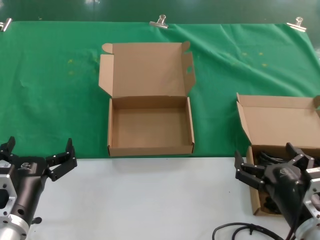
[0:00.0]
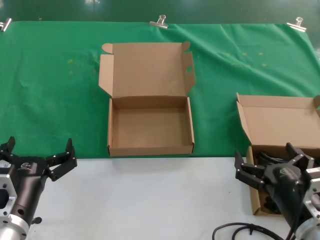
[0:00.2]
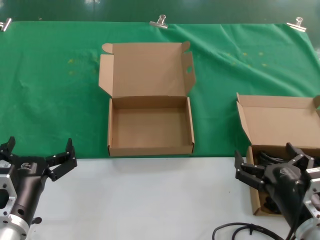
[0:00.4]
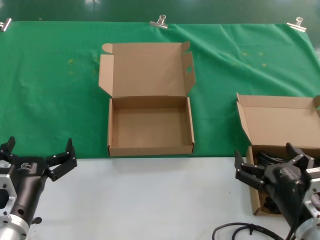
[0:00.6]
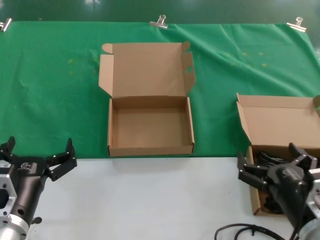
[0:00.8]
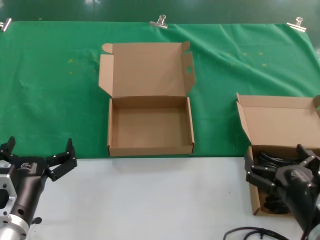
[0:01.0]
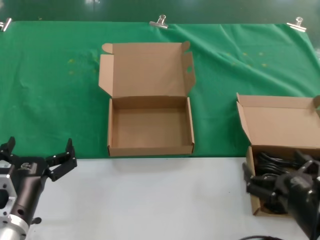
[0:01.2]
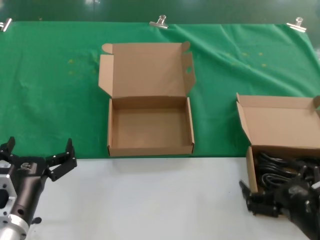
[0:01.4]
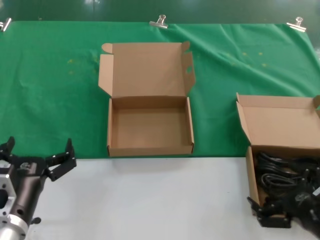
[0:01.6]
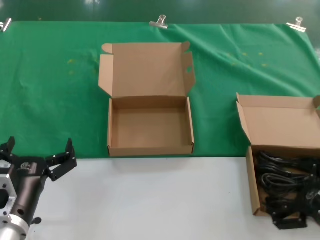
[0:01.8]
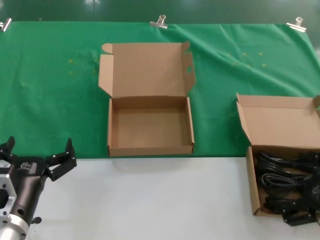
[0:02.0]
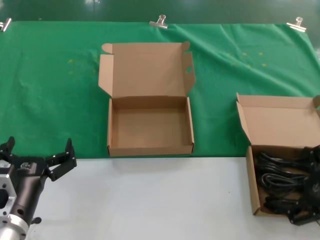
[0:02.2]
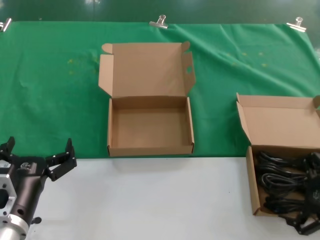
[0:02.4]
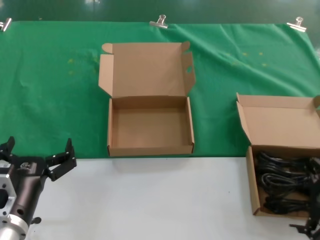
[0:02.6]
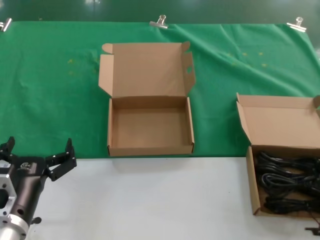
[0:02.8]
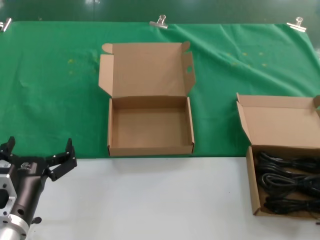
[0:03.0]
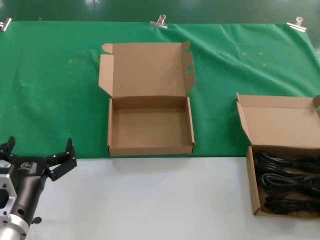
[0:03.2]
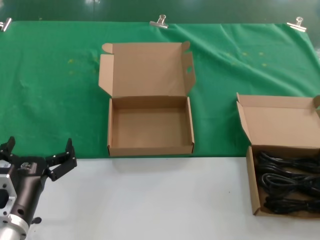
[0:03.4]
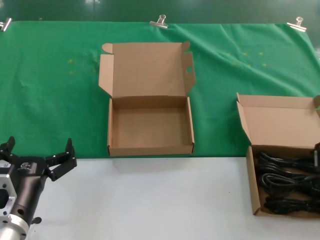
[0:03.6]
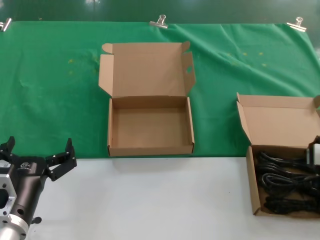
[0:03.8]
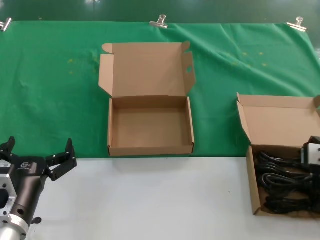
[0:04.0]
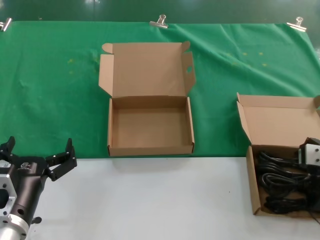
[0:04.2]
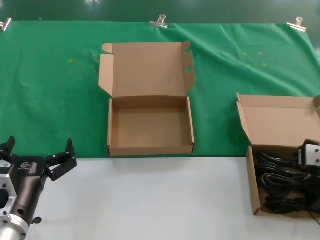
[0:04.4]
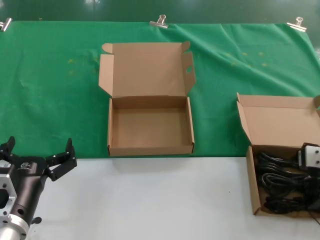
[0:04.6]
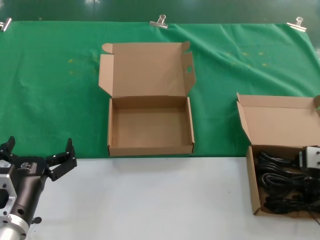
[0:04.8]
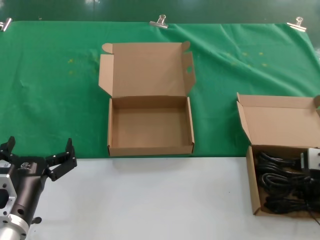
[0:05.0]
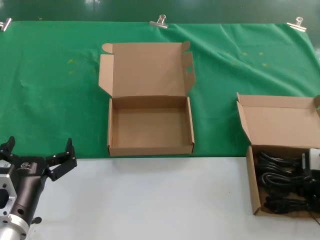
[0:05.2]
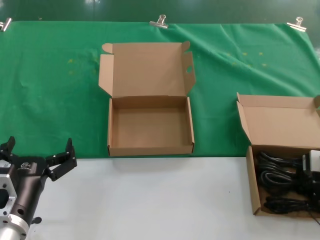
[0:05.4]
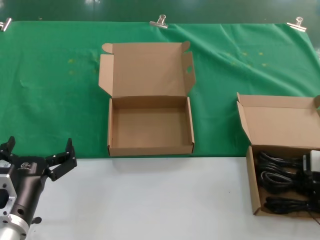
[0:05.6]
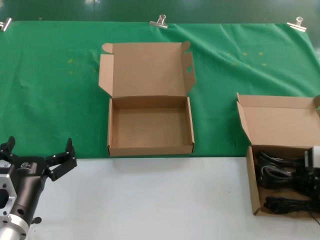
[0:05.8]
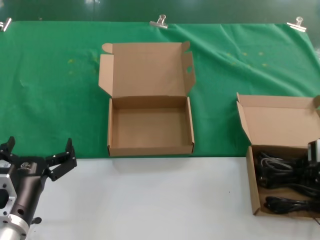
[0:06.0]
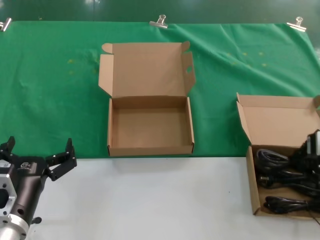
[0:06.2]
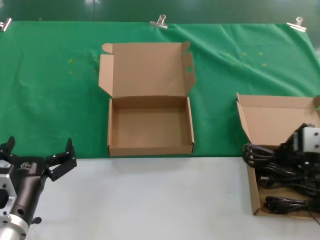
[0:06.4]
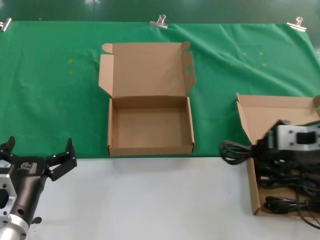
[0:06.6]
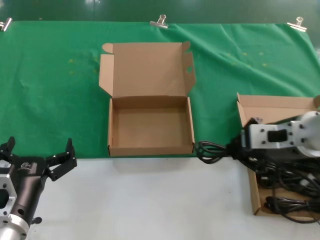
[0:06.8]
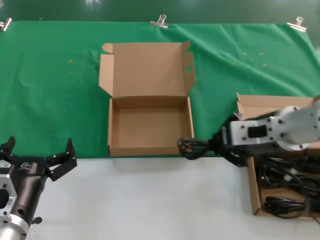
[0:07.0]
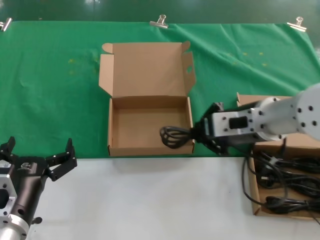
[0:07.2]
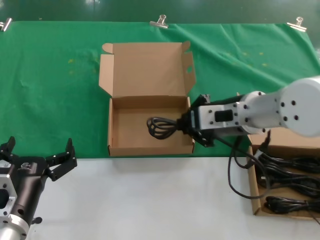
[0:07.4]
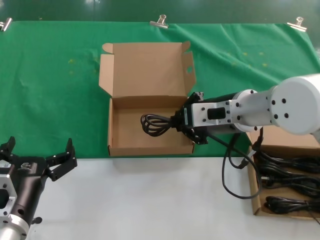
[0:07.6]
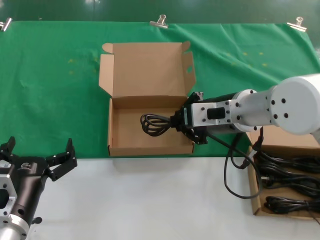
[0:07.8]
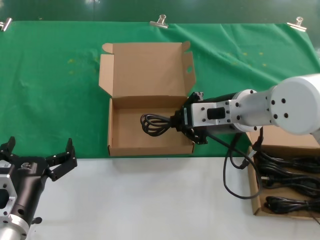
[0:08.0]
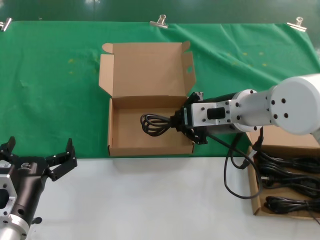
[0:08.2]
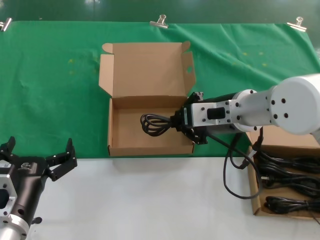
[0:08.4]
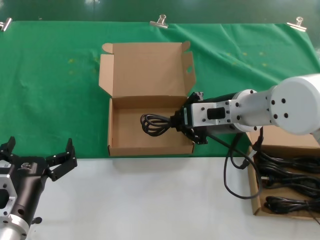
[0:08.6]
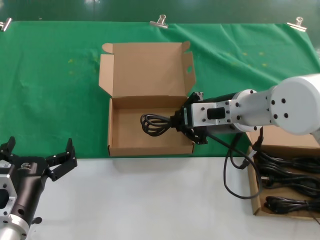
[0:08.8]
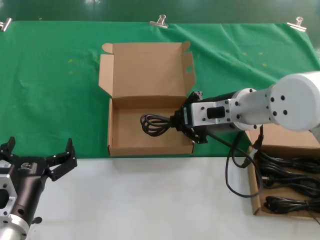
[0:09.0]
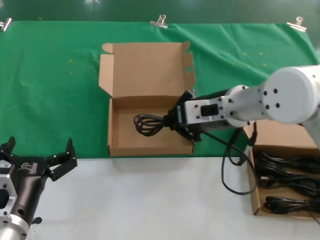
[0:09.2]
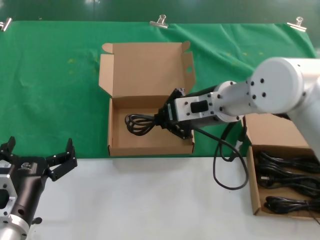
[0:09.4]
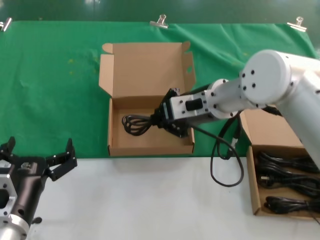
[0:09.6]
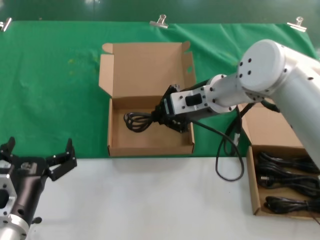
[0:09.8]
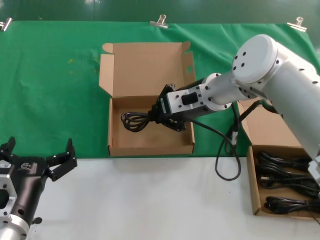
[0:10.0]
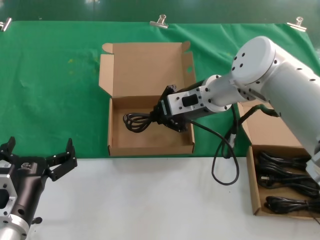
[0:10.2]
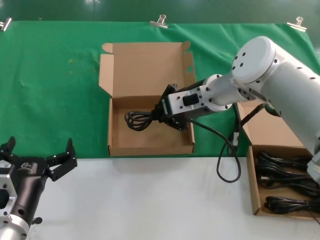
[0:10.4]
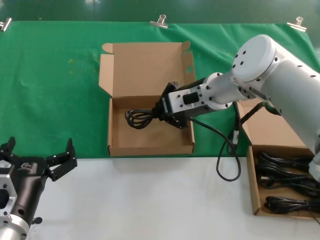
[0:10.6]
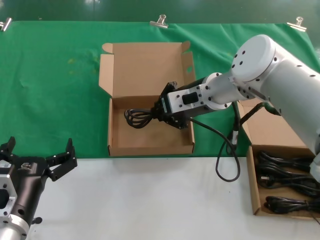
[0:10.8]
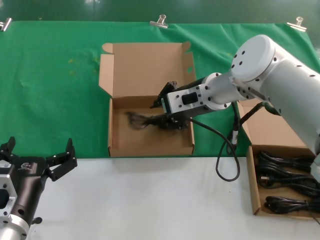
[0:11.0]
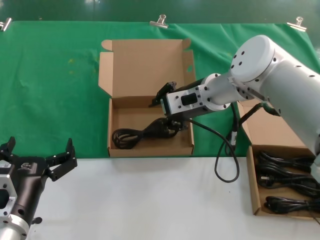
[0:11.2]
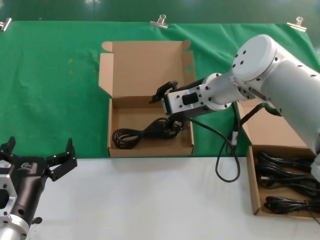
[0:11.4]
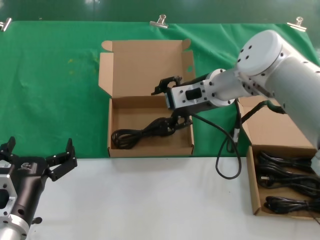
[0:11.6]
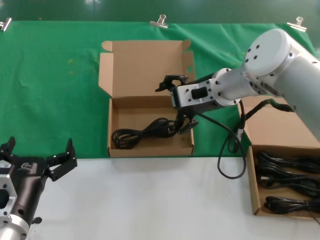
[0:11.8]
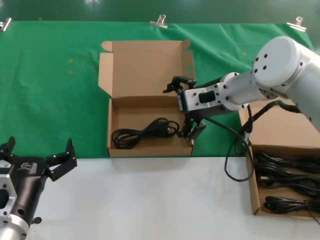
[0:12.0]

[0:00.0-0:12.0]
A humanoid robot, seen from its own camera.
Task of the whole recording: take the parts from the box containing them and put them into an empty box.
Step, 0.0 to 5.2 s: Grasp the data cable.
Step, 5.4 to 11.0 s: Place the data cable in the another box.
0.0 to 1.6 s: The right hand travels to the right by about 5 cm.
1.6 to 3.0 s: The right hand shifts roughly 15 cm upward, forward and to the right.
3.0 to 4.4 s: The right hand goes some 5 cm forward.
4.4 to 6.0 s: The hands make only small movements.
6.0 to 7.6 s: The right hand goes roughly 20 cm to the left.
7.6 to 9.0 s: Neither hand changes place.
9.0 to 10.4 s: The right hand goes some 10 cm forward.
10.4 to 12.0 s: The hands make only small movements.

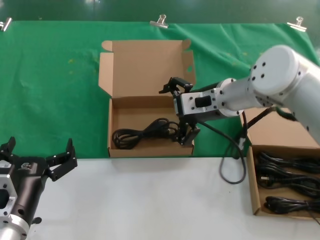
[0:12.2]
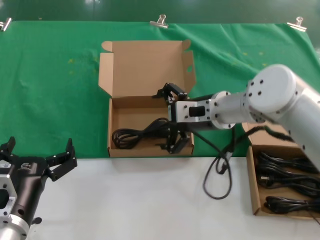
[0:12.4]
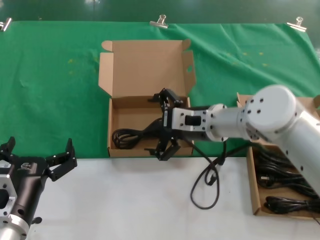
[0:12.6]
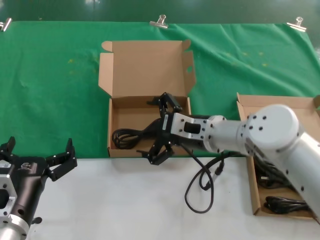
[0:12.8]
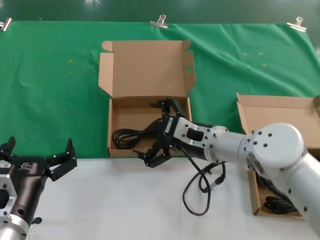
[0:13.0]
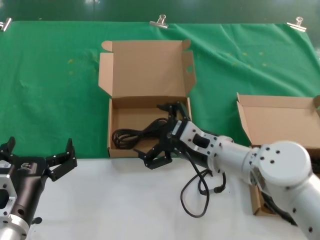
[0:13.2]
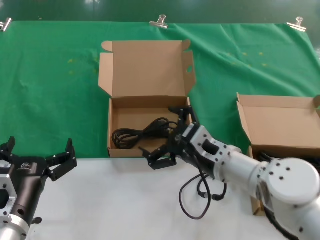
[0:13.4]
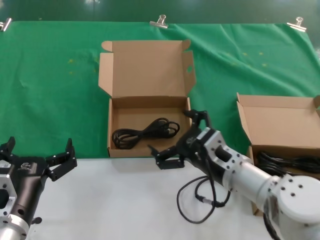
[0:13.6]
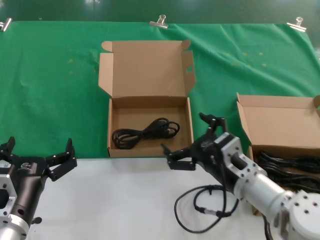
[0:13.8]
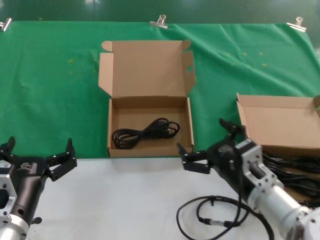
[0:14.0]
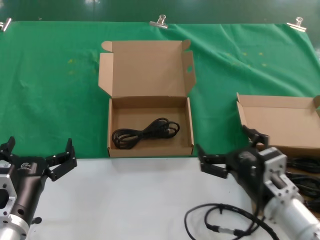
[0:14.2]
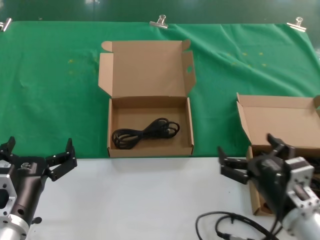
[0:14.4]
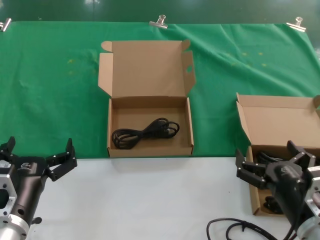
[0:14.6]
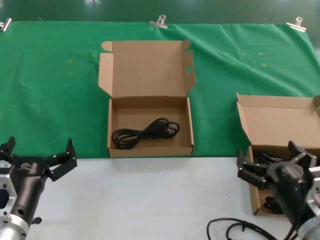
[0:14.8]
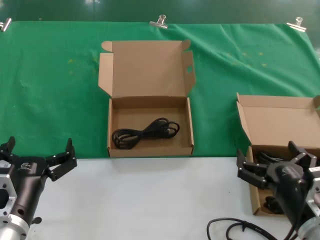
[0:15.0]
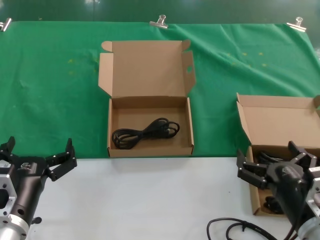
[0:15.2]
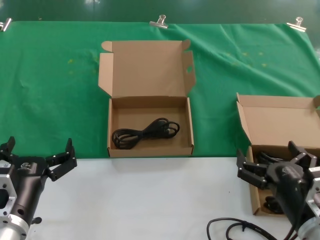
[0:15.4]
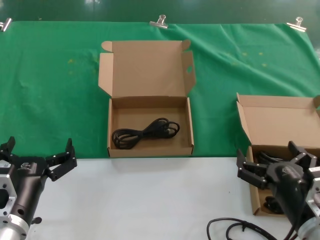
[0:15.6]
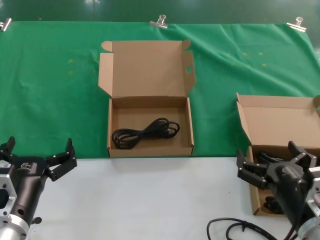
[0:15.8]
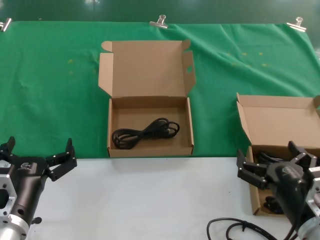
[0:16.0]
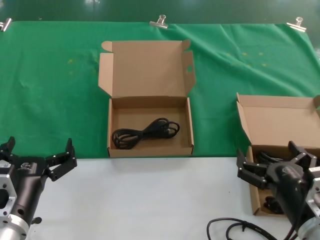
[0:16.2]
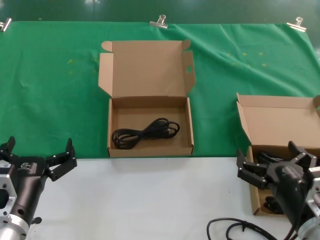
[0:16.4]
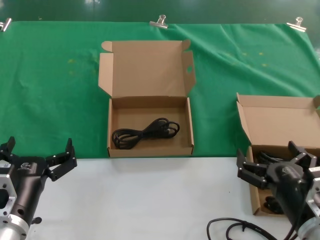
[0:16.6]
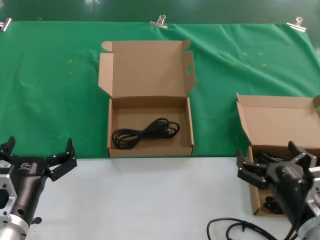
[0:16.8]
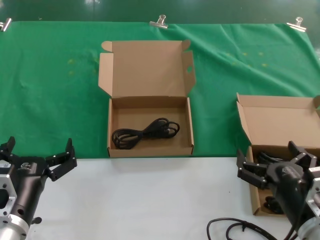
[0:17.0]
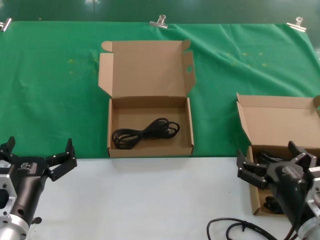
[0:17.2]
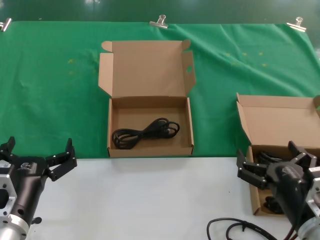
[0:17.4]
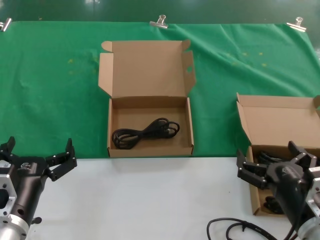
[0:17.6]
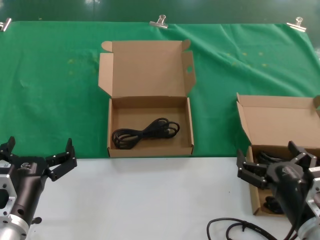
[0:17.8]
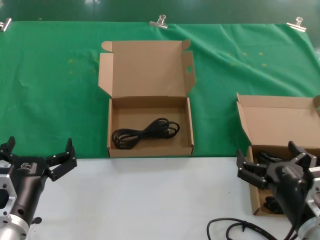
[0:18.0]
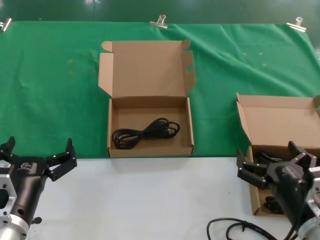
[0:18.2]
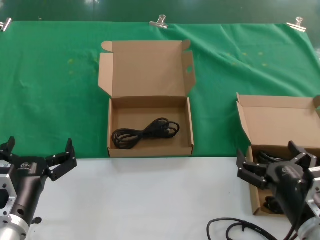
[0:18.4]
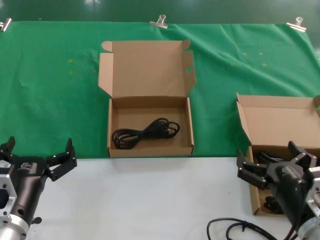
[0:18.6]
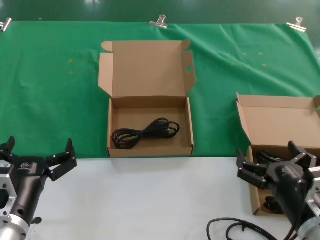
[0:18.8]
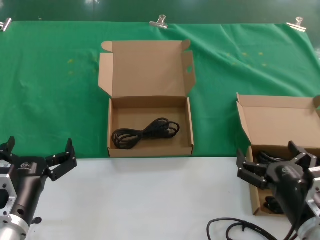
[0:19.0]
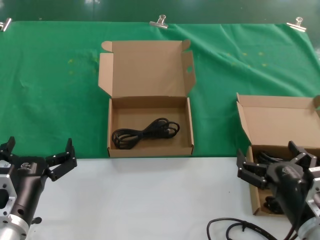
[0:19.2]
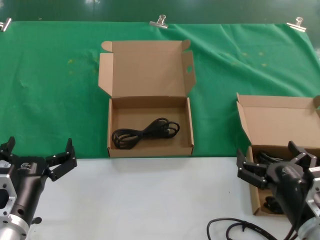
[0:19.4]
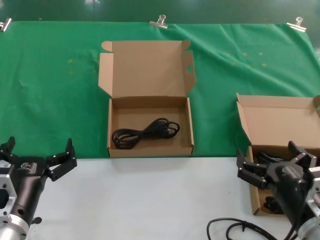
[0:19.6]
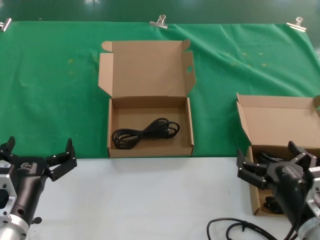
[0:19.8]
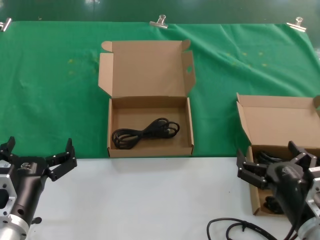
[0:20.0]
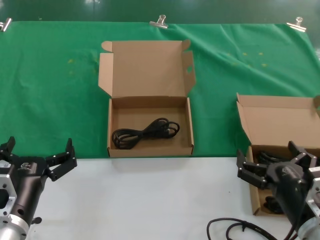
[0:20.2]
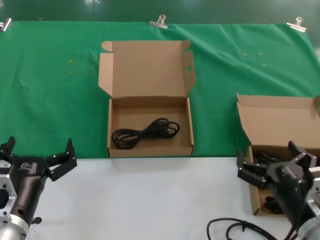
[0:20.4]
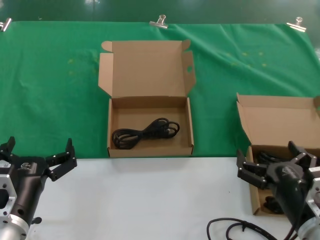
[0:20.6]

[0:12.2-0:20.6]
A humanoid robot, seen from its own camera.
Task of the whole recording: take the parts from the box containing them and put them into an empty box.
12.2 to 13.6 s: The right hand is displaced downward and backward by approximately 20 cm.
13.6 to 15.0 s: The right hand is displaced backward and to the right by some 15 cm.
15.0 to 20.6 s: Neither hand changes place.

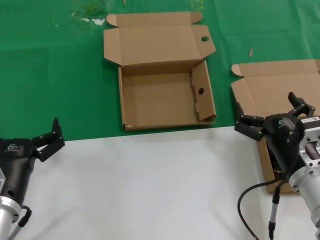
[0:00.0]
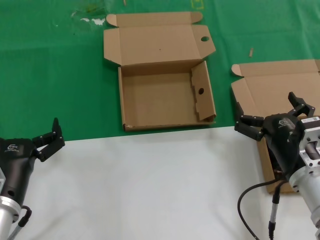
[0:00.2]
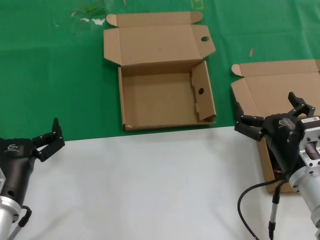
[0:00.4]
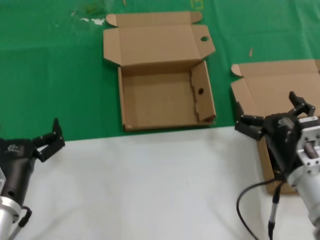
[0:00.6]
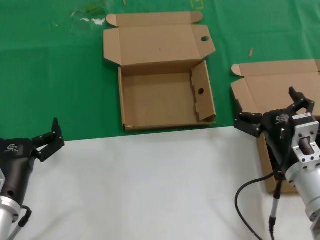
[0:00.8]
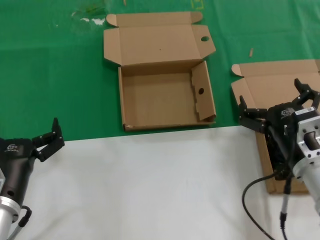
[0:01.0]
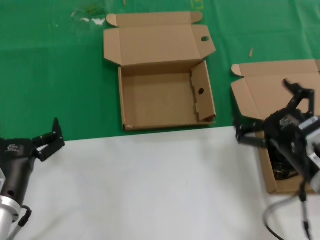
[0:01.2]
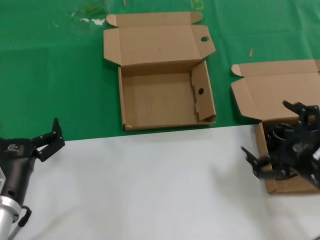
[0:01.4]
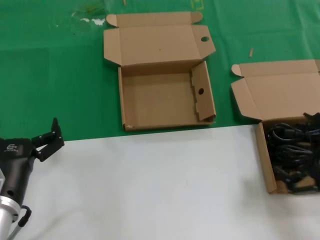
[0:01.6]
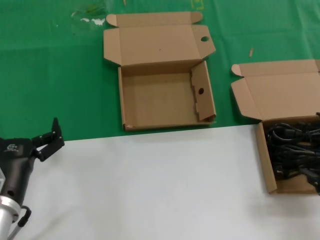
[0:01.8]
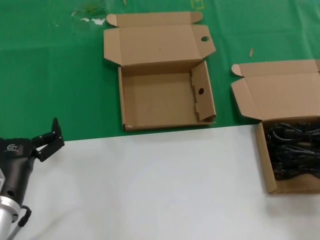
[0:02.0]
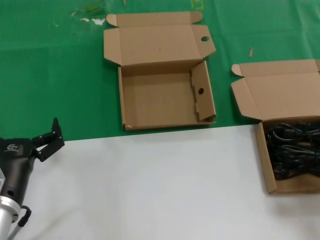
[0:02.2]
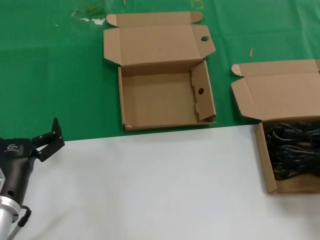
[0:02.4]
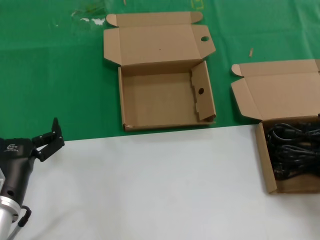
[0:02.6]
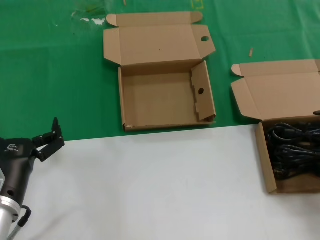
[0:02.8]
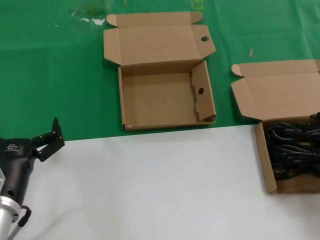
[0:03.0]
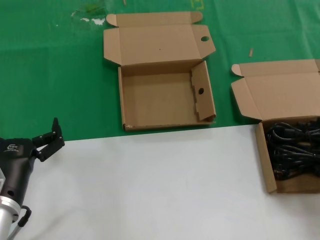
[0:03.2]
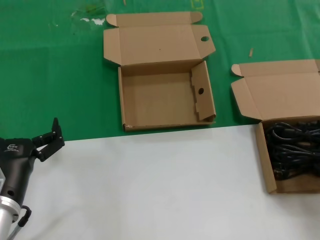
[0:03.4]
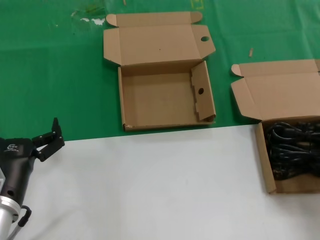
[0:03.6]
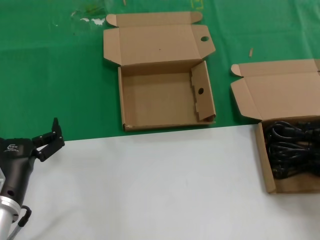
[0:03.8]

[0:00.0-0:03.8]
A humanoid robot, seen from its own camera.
Task of the whole recording: take the parts from the box containing them and put them into an empty box.
0.0 to 1.2 s: The hands move only a little.
1.2 to 2.6 s: The right hand moves to the right, approximately 15 cm.
